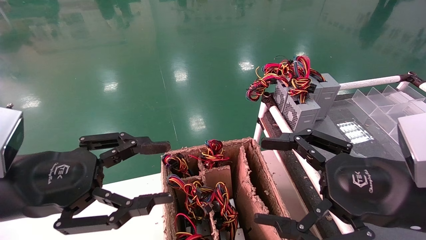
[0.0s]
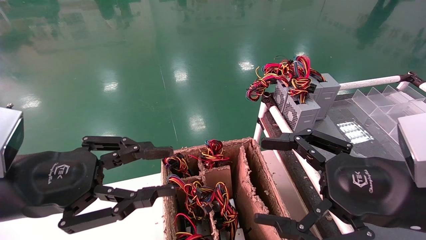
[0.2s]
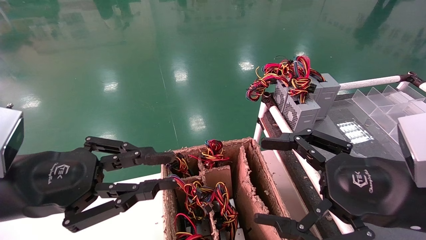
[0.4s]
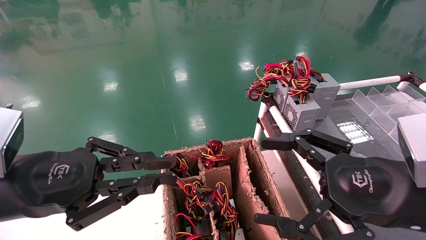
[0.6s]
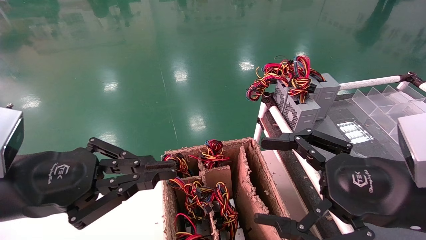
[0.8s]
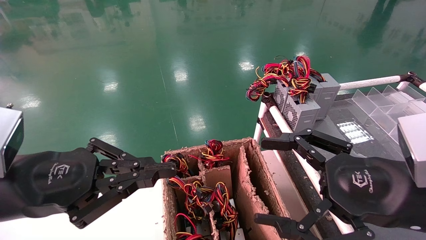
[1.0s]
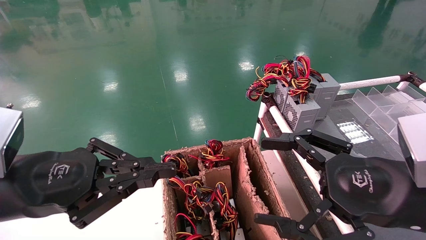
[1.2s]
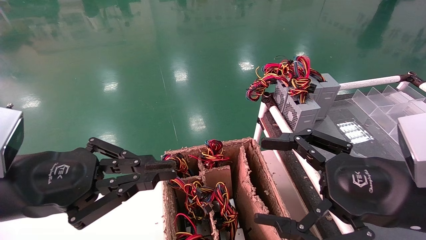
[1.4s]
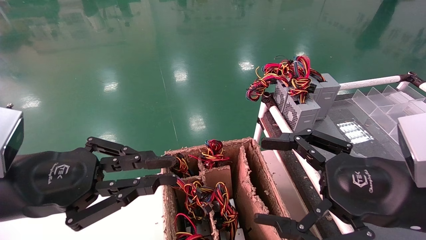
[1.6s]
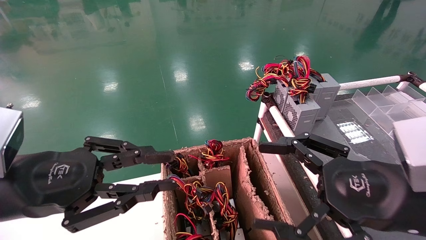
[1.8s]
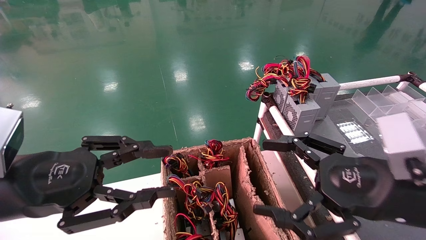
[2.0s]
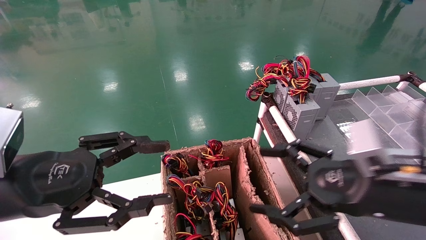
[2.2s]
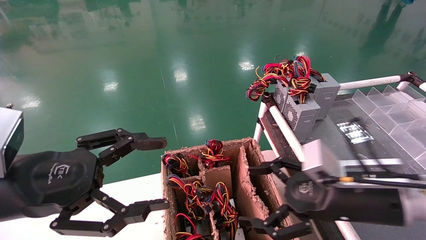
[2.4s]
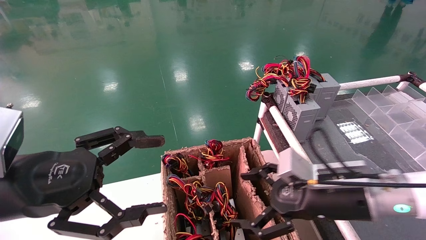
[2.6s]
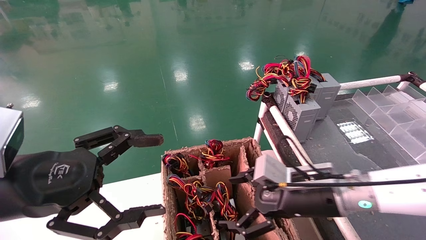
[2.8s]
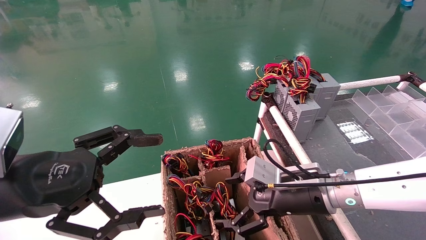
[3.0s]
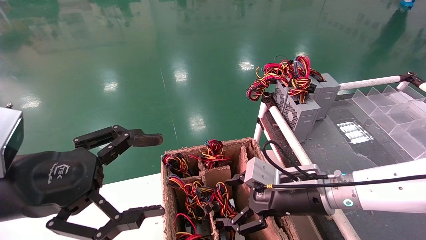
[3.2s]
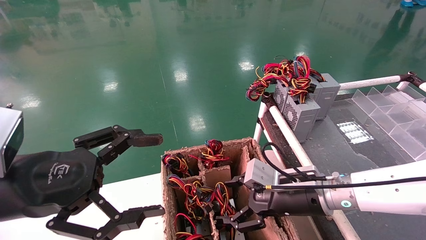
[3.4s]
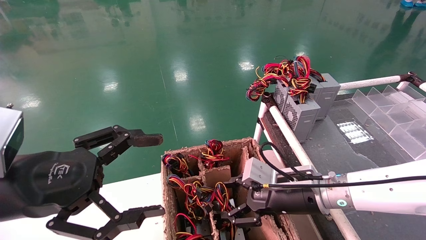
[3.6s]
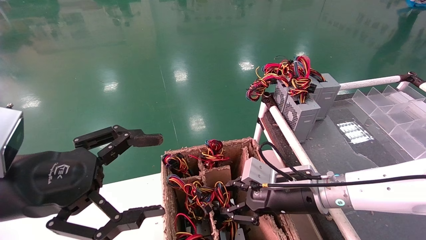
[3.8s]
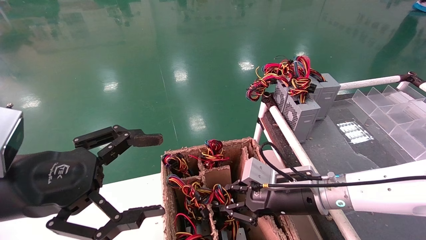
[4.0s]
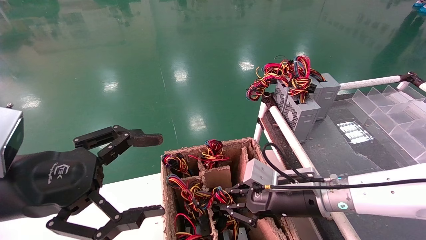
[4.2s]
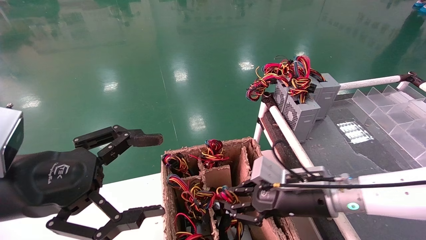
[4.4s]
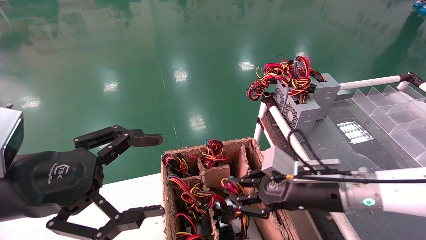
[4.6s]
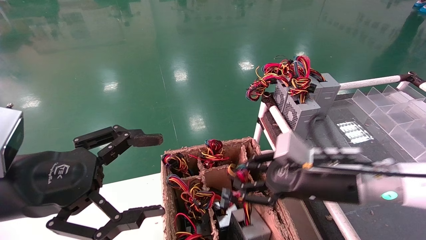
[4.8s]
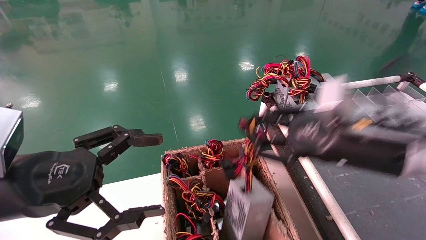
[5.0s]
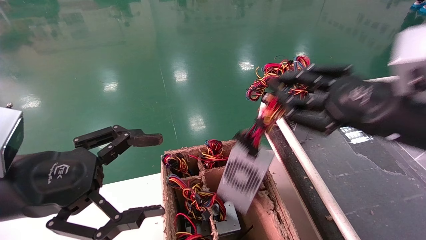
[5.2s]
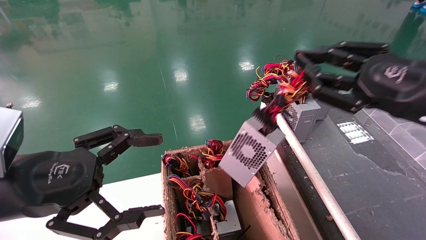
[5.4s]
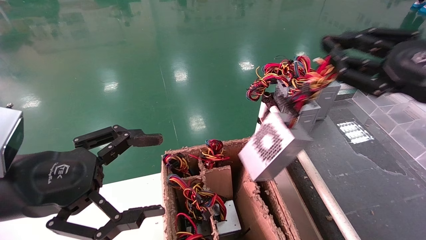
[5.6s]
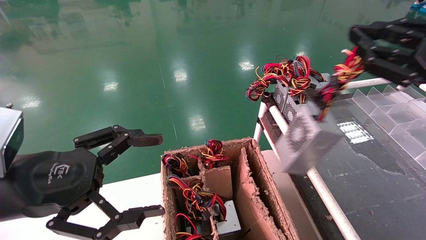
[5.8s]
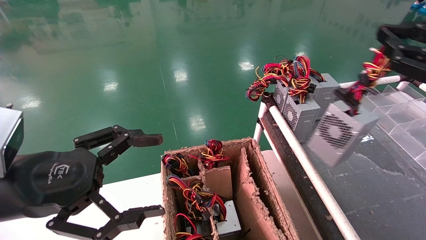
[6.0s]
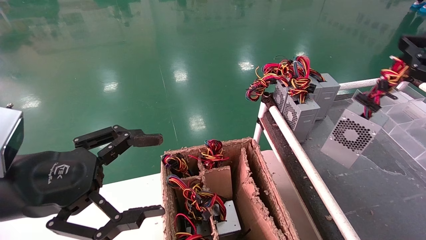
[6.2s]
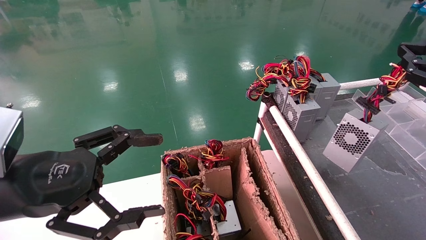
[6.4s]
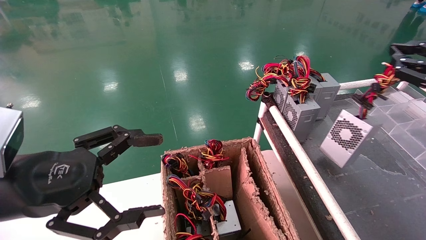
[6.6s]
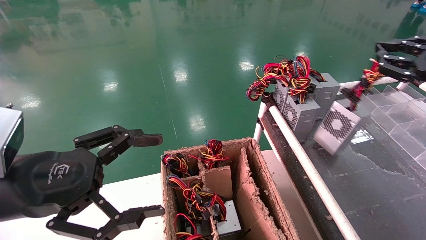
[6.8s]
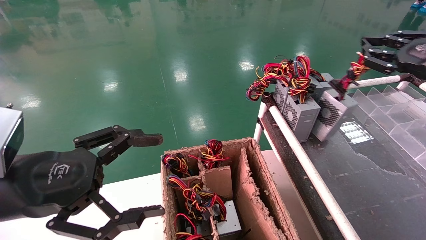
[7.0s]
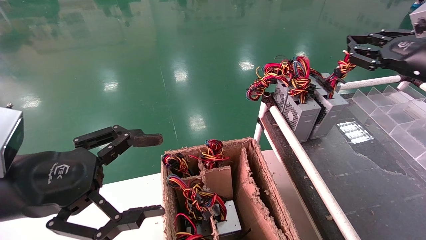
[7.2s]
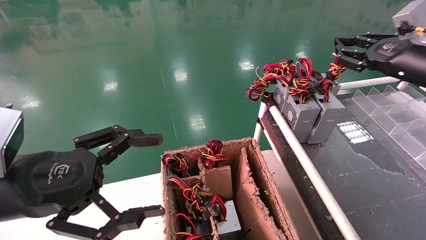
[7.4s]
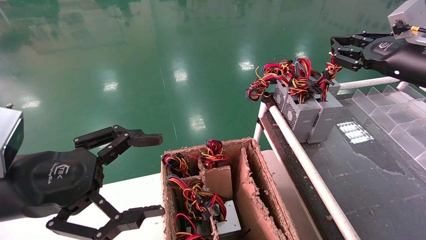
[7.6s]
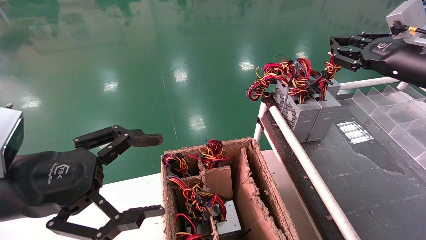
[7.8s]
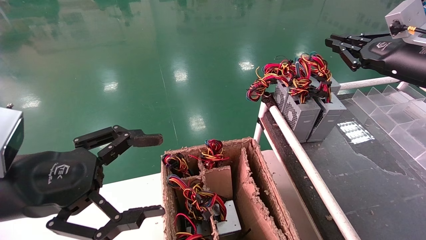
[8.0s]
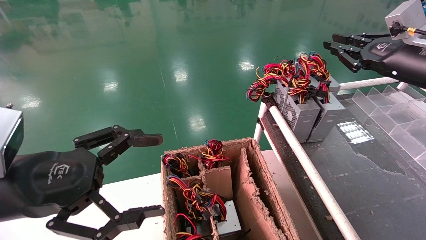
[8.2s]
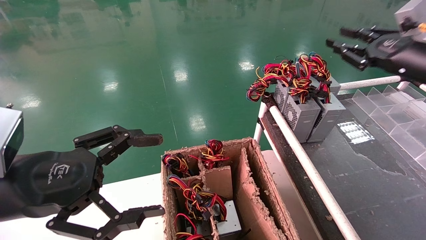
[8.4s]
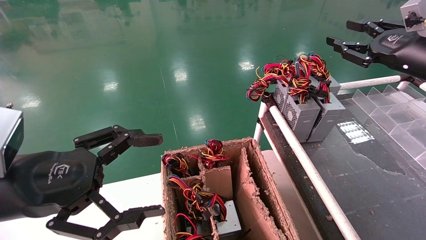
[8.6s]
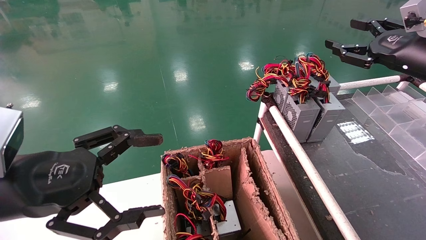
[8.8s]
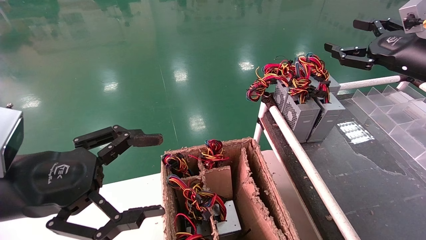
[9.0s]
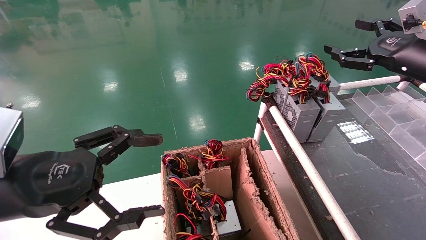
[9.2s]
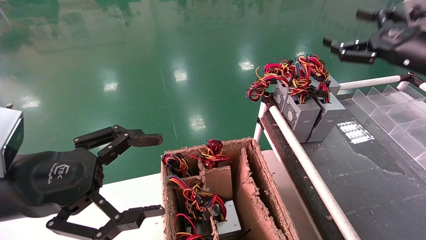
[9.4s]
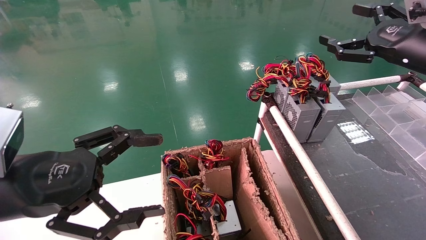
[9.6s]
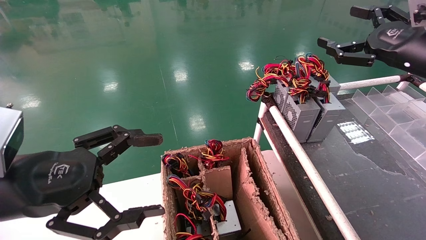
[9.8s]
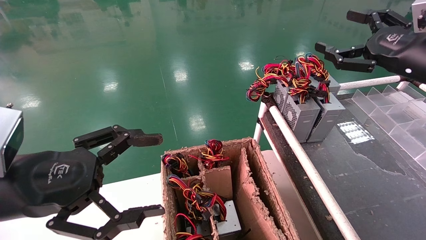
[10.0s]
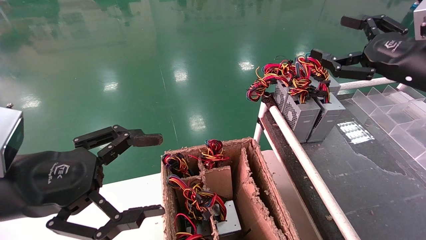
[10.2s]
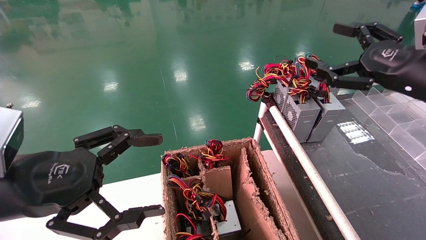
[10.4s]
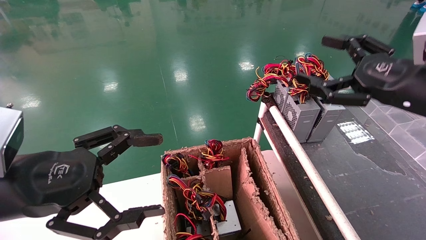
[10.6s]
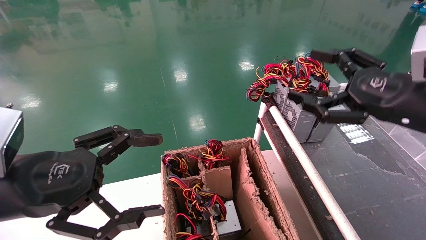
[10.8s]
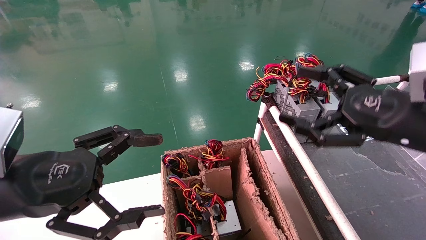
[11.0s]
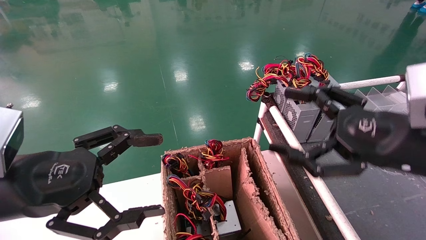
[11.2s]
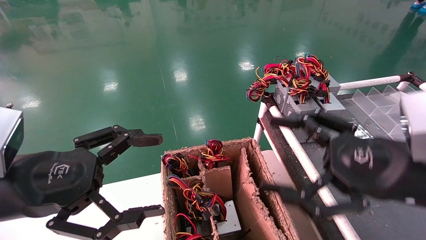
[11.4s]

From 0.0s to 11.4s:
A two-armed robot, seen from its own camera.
Step, from 1.4s to 4.4s: Grab and lift the power supply from the large box.
Step, from 4.6s to 8.2s: Place the power supply on the operating table.
From 0.0s to 1.4s: The left gripper closes.
From 1.4s to 2.8s: The left gripper opens. The right gripper shifts approximately 15 cm forward, downward and to the left.
From 2.8s to 4.2s: The right gripper closes up.
From 4.2s to 5.6s: The right gripper goes about 25 cm upward, to the right and backward.
From 5.6s to 7.2s: The right gripper travels forward and to the right by roughly 15 cm.
From 7.2s to 8.6s: The right gripper opens up.
From 8.6s to 10.0s: The right gripper opens up.
From 10.0s to 11.4s: The right gripper moves backward, downward and to the left, some 20 cm.
